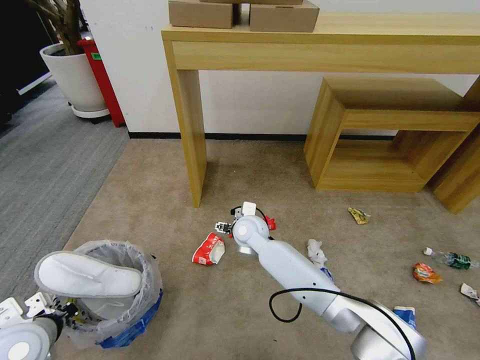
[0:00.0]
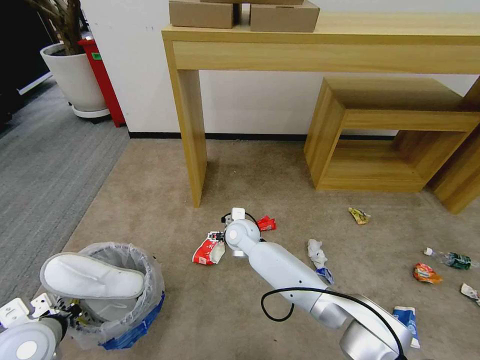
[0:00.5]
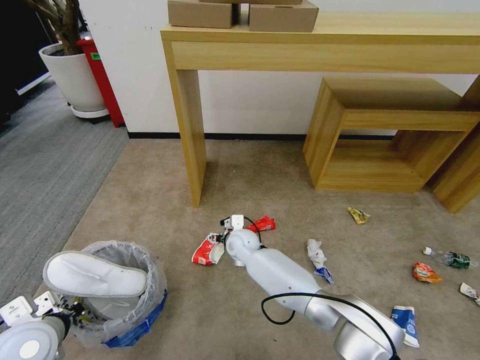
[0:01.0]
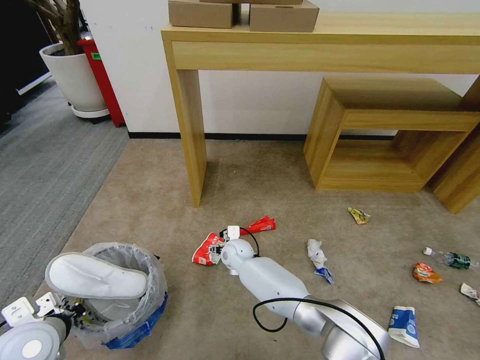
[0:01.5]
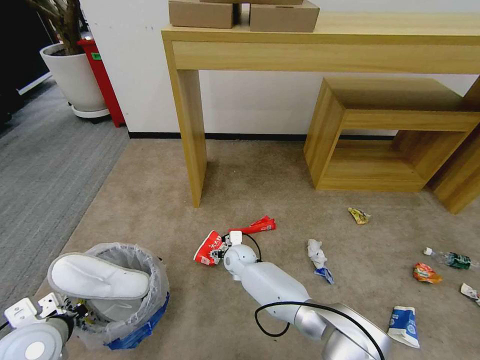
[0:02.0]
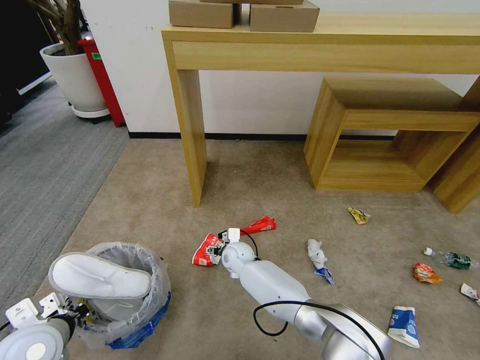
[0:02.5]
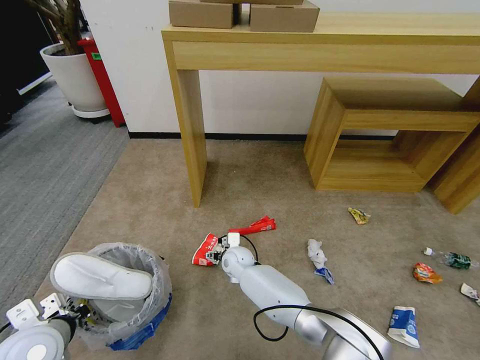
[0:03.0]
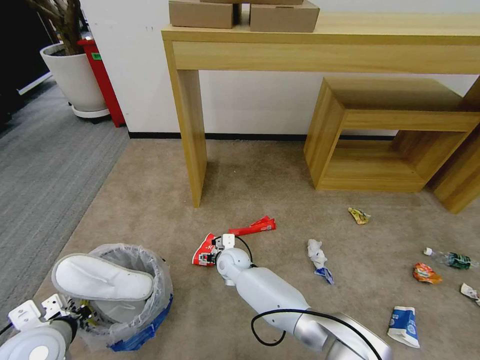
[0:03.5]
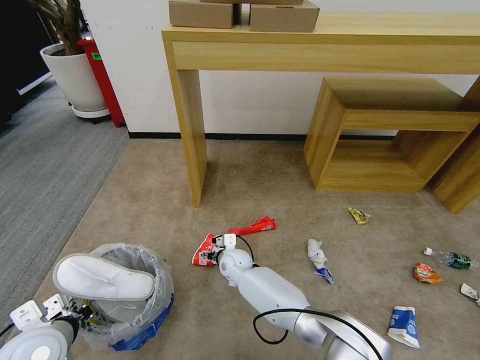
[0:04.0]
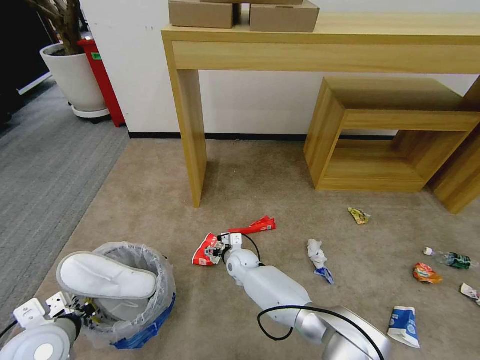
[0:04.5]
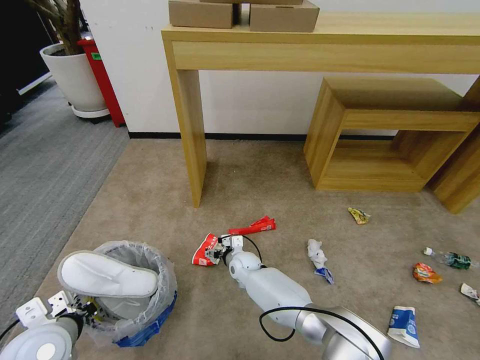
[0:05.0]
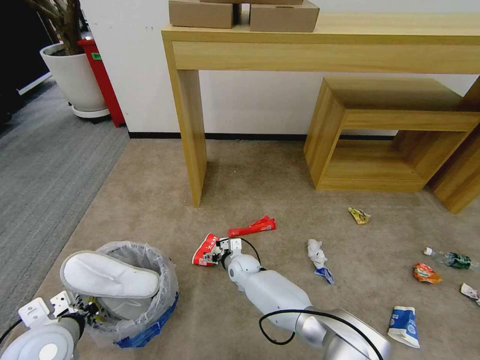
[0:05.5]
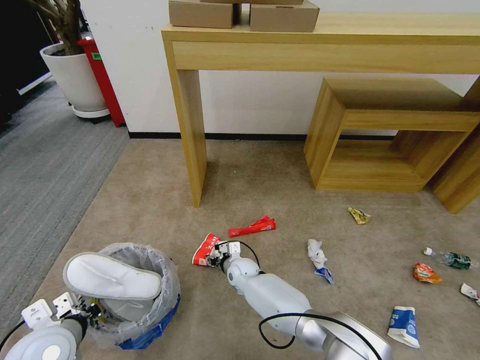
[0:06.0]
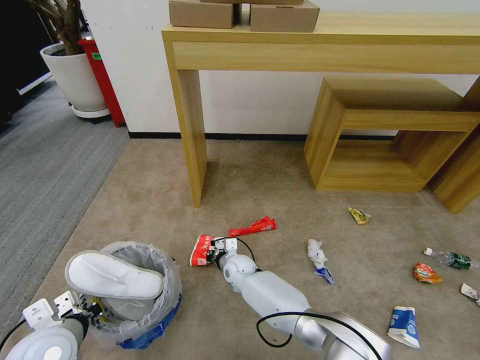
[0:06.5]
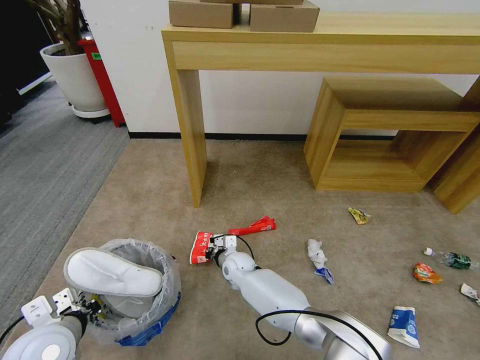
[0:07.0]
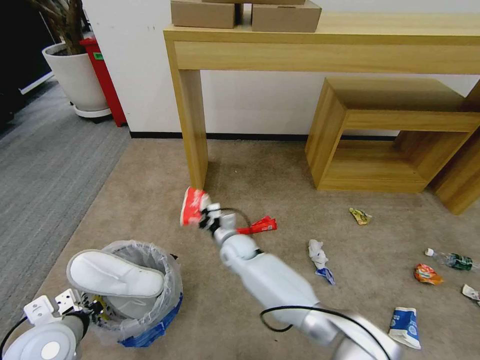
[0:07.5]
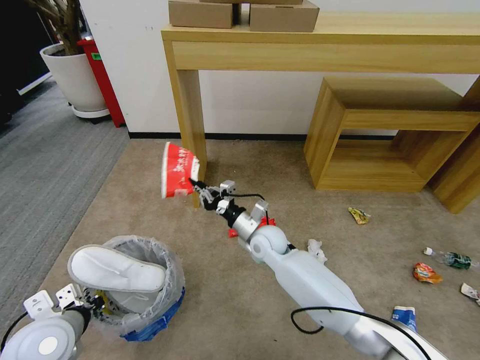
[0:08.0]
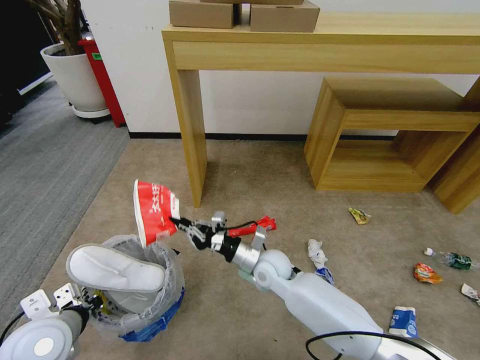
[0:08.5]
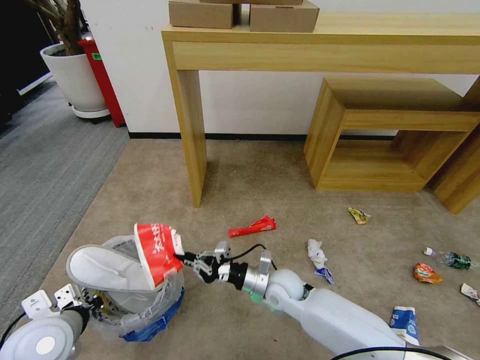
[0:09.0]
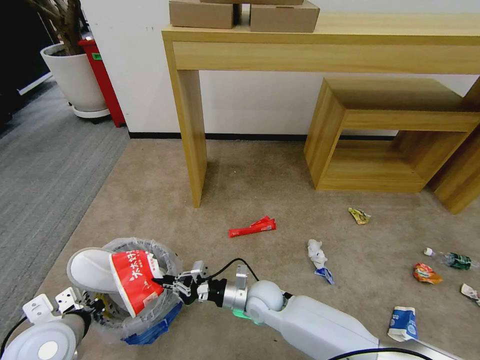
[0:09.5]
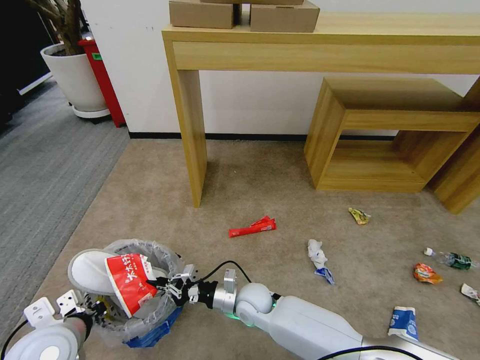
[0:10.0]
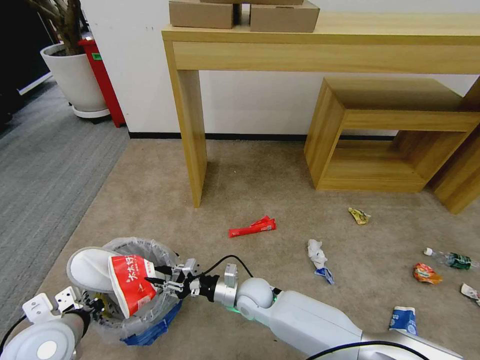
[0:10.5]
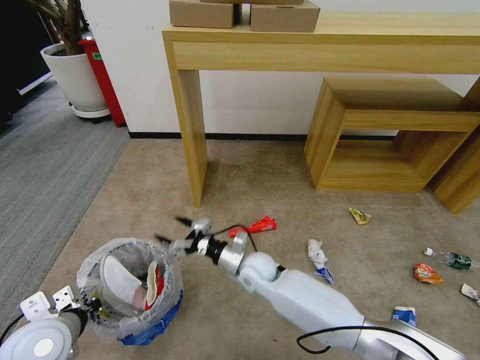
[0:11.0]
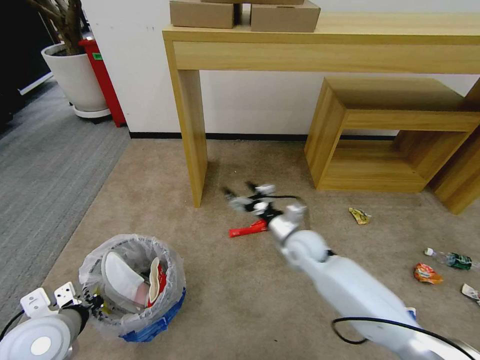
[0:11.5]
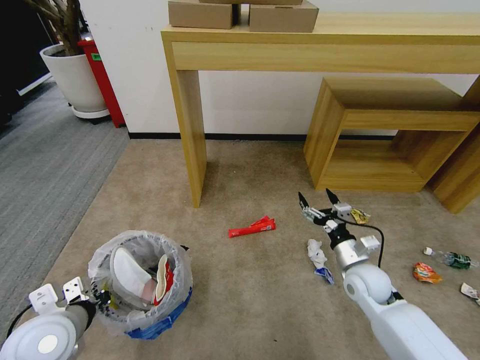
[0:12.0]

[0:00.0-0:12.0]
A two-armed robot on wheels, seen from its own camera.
Task of the whole recording: Pick up the trash bin and place the garbage on the floor into it.
0:00.0 to 0:02.0: The right gripper shifts approximately 15 cm downward.
0:02.0 to 0:04.0: The grippers make only small movements.
0:04.0 to 0:06.0: The right gripper closes its fingers.
0:06.0 to 0:08.0: The right gripper heads upward, covering roughly 15 cm, and closes up.
0:08.0 to 0:10.0: The right gripper moves backward and downward, about 15 cm.
0:10.0 to 0:12.0: The right gripper heads to the right, covering roughly 25 cm, and opens its fingers.

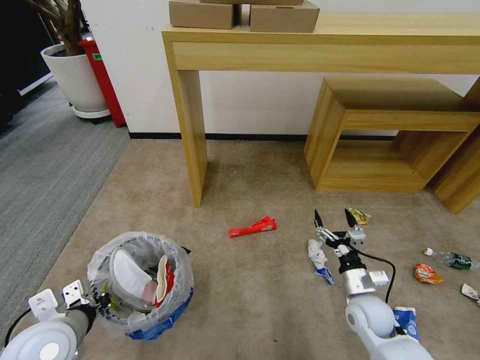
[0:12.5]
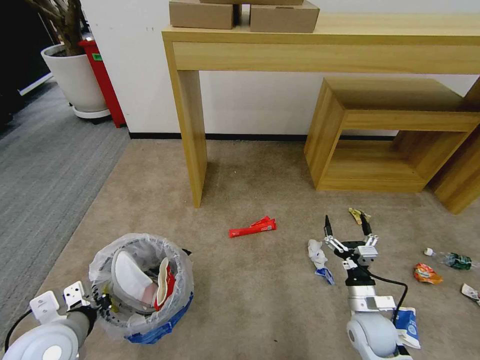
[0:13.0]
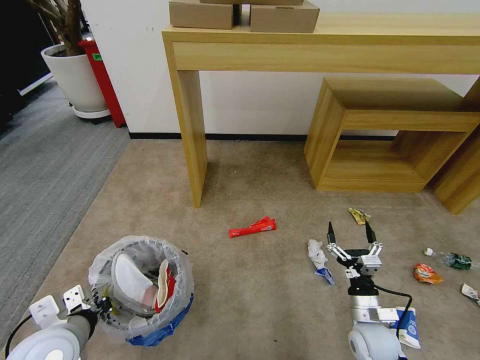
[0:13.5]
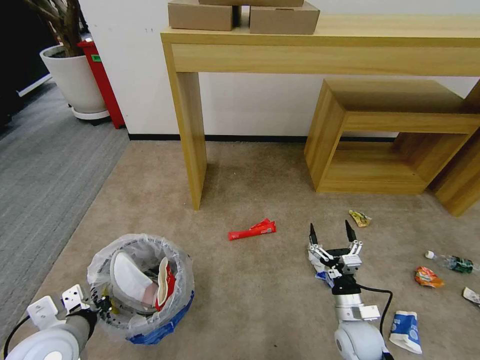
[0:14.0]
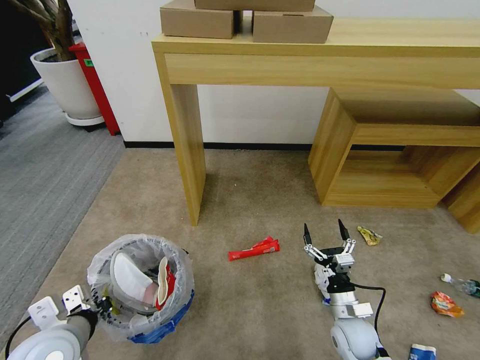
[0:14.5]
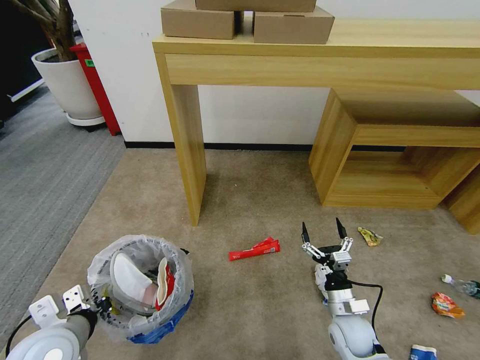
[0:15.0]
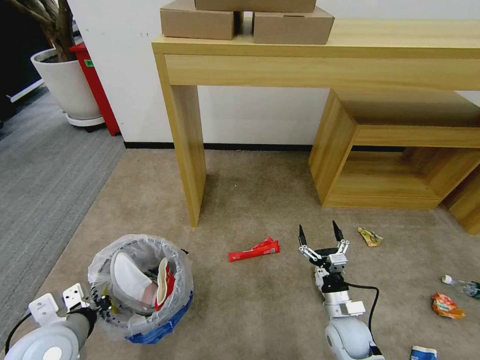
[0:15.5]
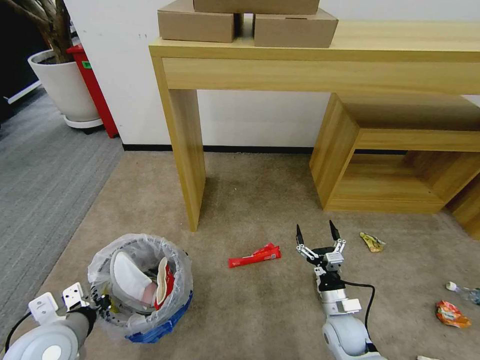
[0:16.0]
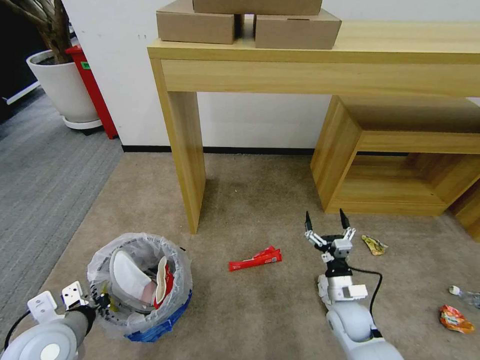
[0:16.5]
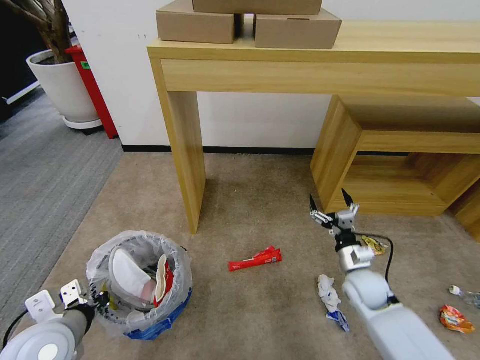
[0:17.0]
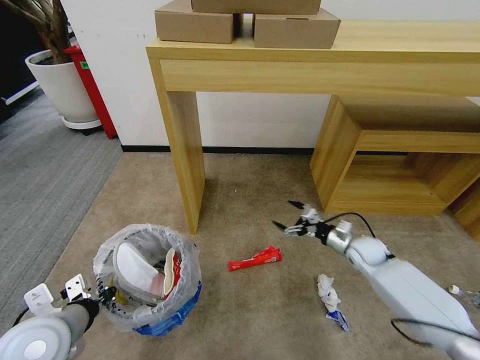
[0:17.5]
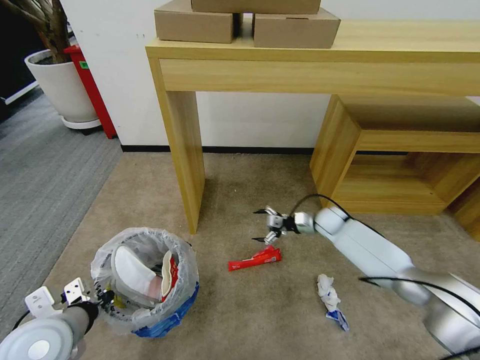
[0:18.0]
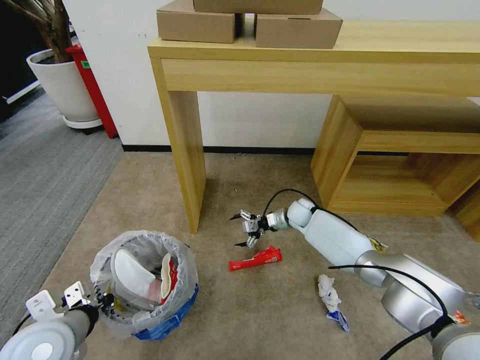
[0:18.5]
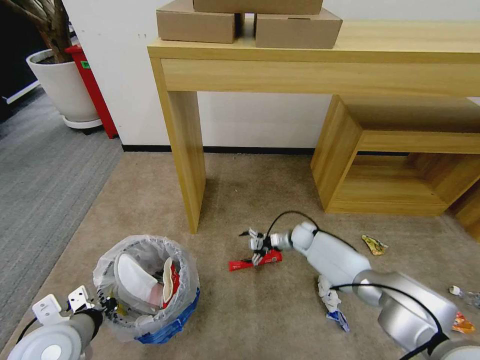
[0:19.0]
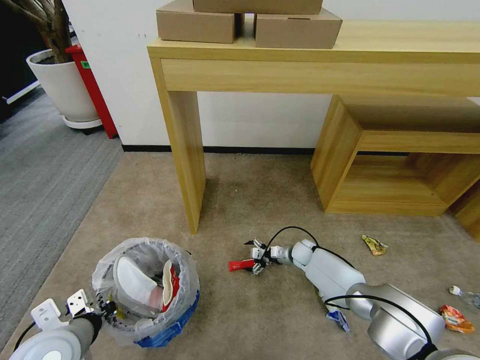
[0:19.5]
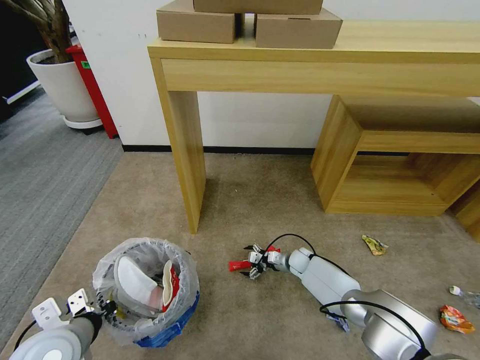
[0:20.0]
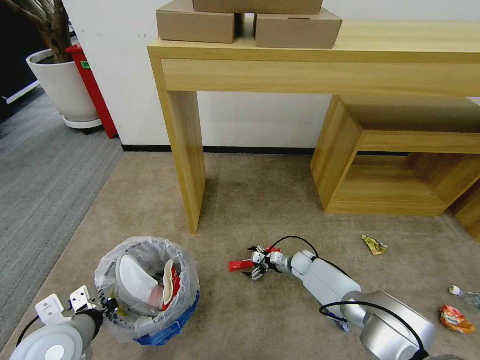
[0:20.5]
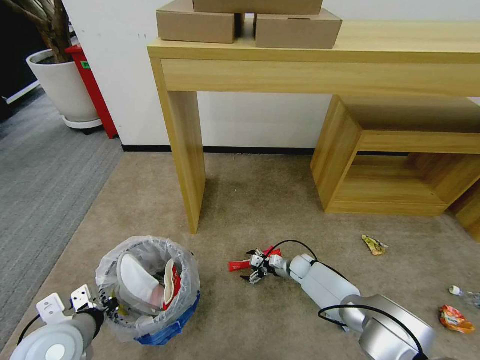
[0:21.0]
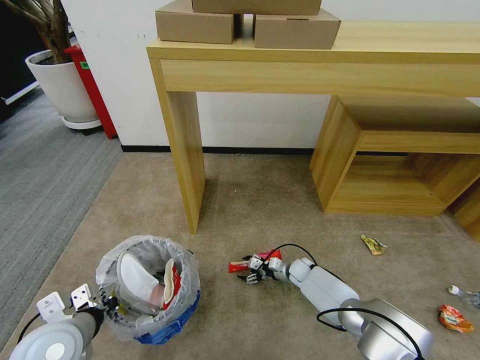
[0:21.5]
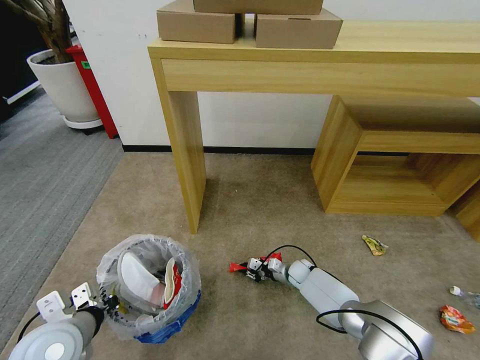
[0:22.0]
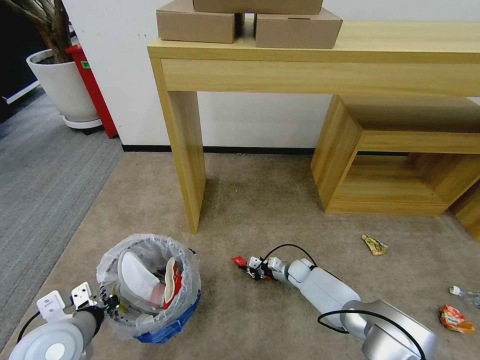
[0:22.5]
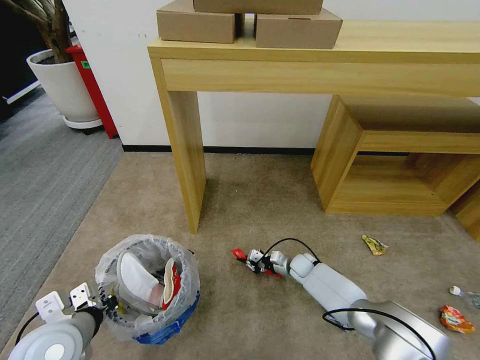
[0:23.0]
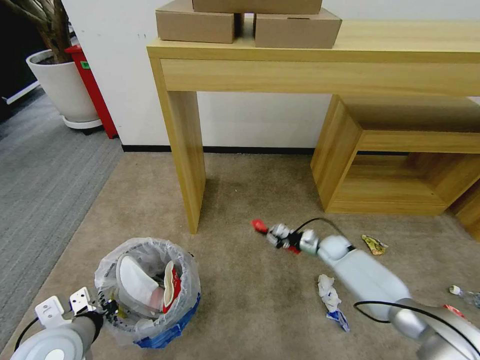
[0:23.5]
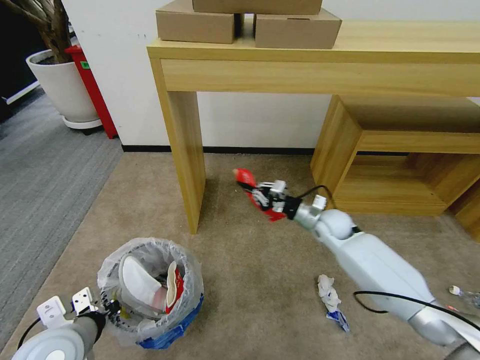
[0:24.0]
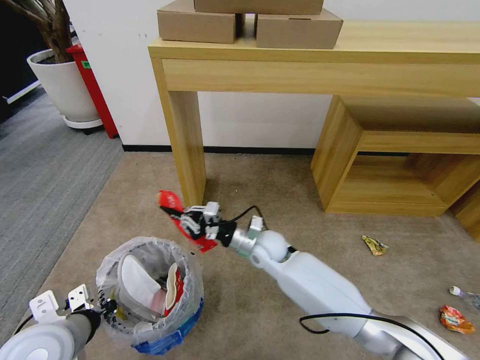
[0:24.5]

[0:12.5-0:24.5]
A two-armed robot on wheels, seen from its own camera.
Task of the whole recording: Pick up the trash bin and place the garbage on the floor into it.
0:12.5 to 0:14.5: The right gripper goes roughly 5 cm downward and backward.
0:14.5 to 0:16.5: The grippers move only a little.
0:16.5 to 0:18.5: The right gripper moves forward, roughly 30 cm.
0:18.5 to 0:20.5: The right gripper is displaced downward and backward by roughly 20 cm.
0:20.5 to 0:22.5: The right gripper closes.
0:22.5 to 0:24.5: The right gripper goes some 25 cm upward and to the left.

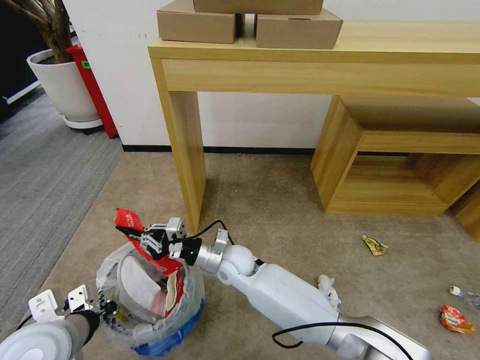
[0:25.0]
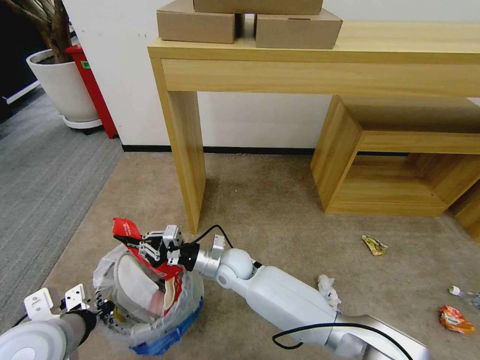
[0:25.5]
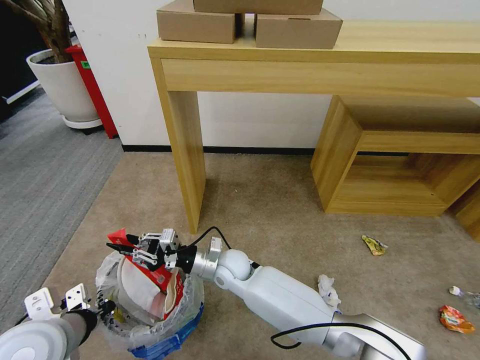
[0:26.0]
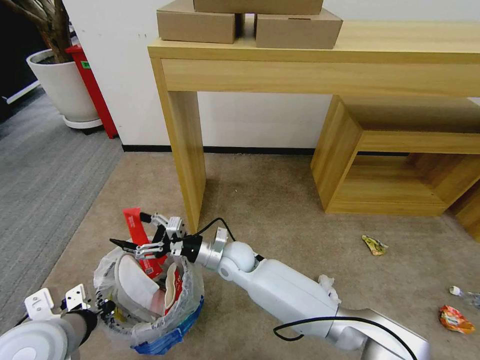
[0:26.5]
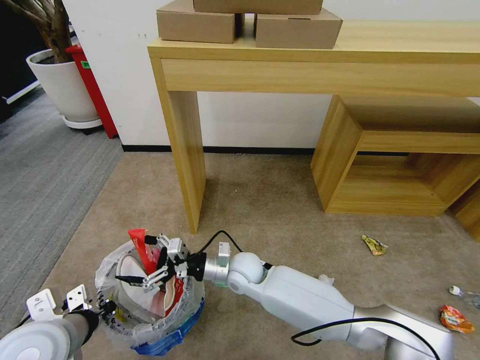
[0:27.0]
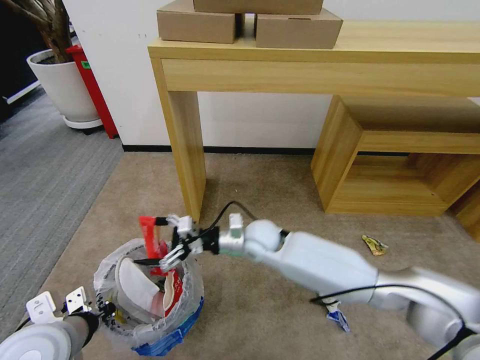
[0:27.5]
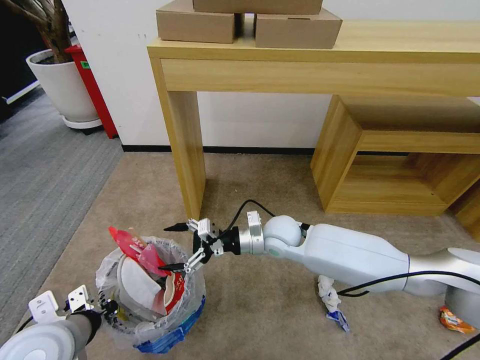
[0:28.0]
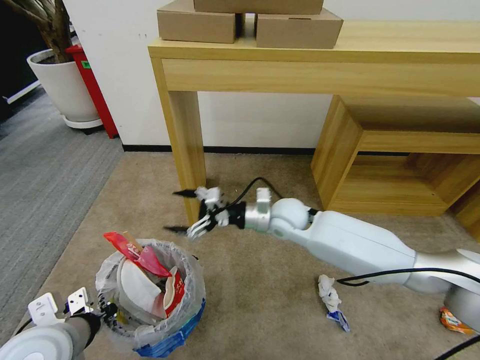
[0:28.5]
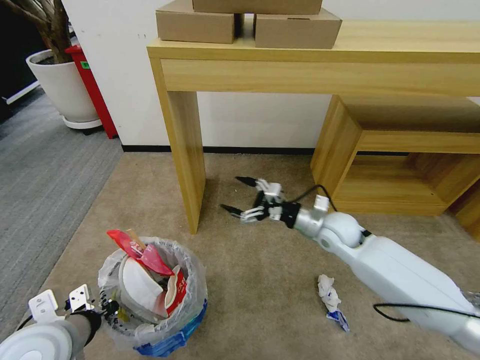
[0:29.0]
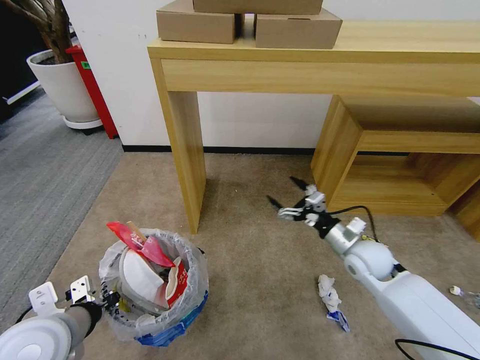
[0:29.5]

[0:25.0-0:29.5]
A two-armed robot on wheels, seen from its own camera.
Task of the whole recording: Pick up the trash bin and place the garbage on the floor into it.
0:25.0 to 0:27.0: The right gripper opens up.
0:27.0 to 0:29.5: The right gripper heads to the right, covering about 30 cm.
